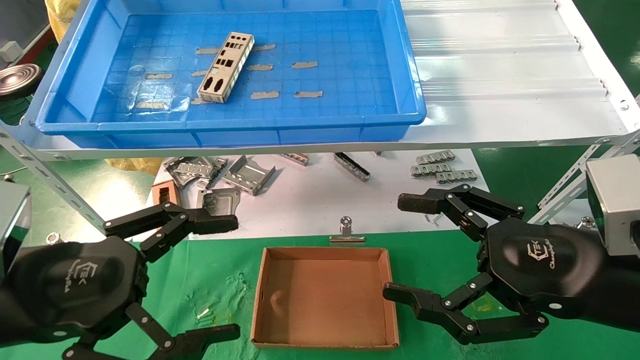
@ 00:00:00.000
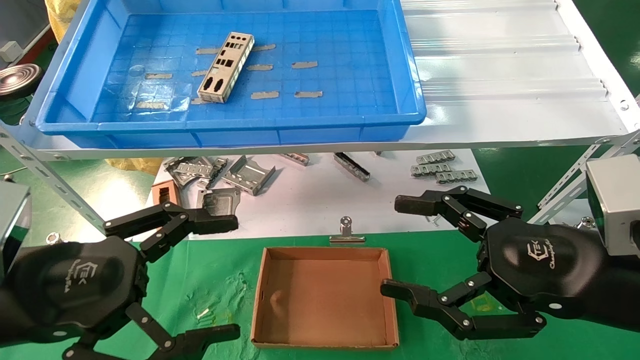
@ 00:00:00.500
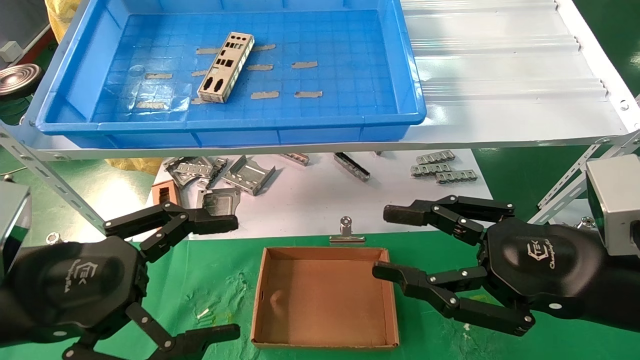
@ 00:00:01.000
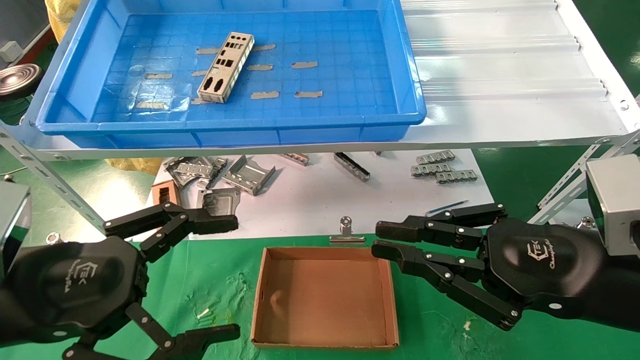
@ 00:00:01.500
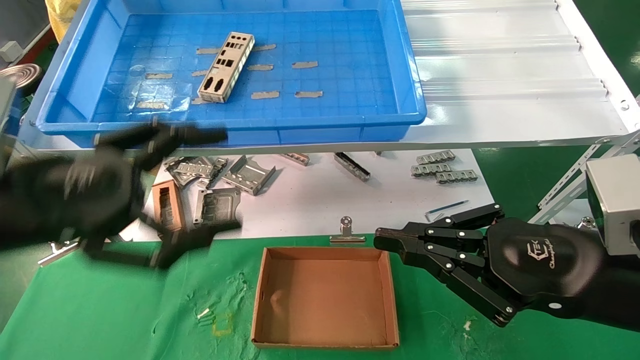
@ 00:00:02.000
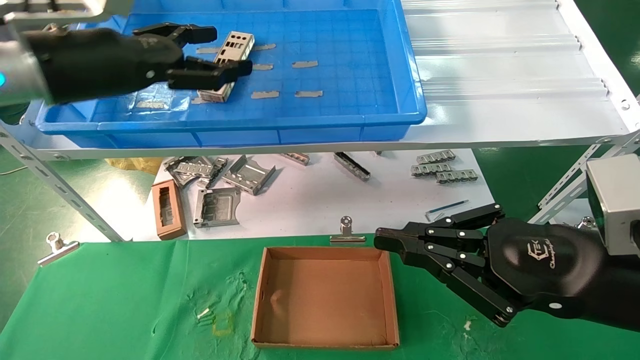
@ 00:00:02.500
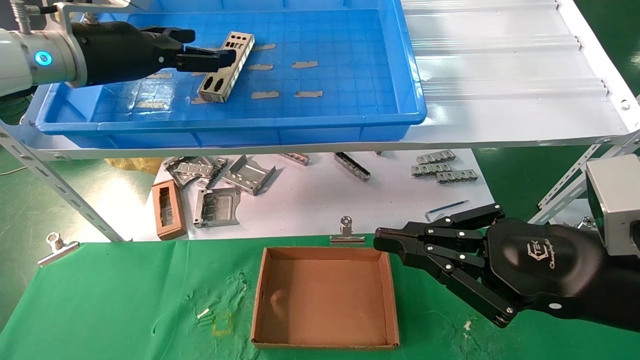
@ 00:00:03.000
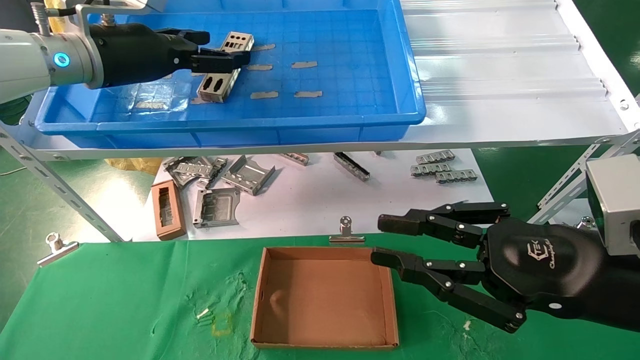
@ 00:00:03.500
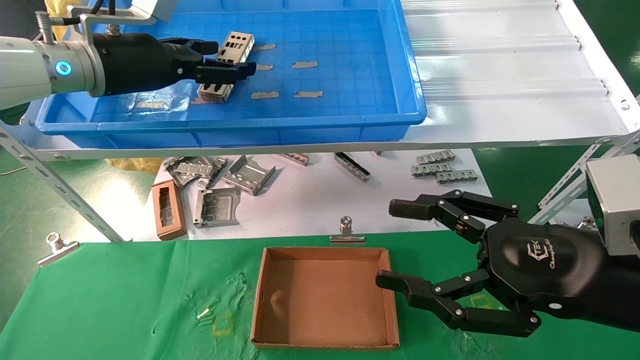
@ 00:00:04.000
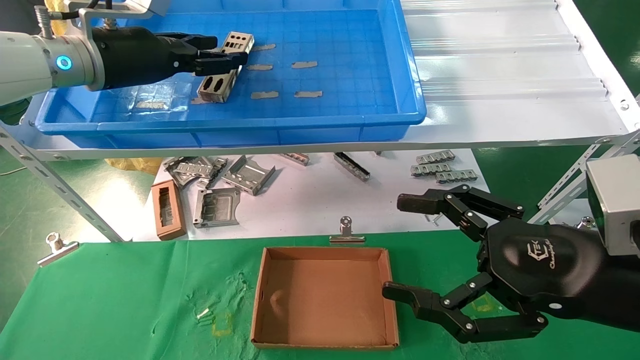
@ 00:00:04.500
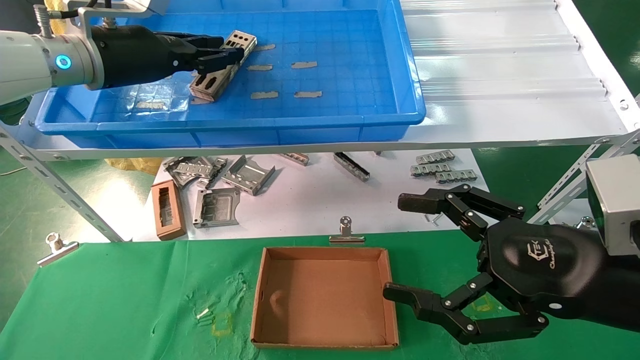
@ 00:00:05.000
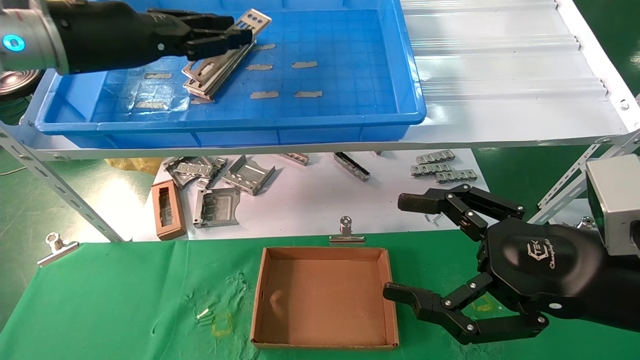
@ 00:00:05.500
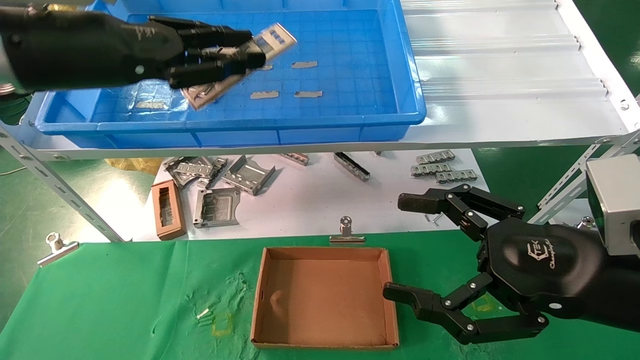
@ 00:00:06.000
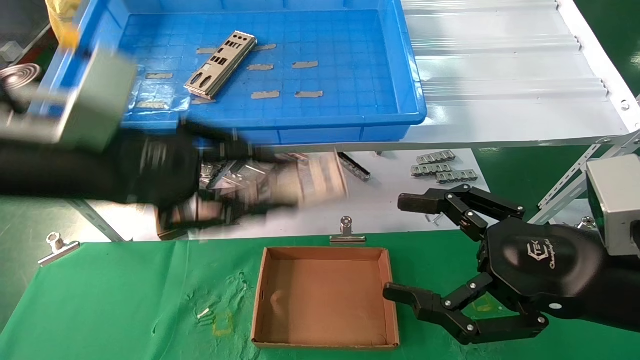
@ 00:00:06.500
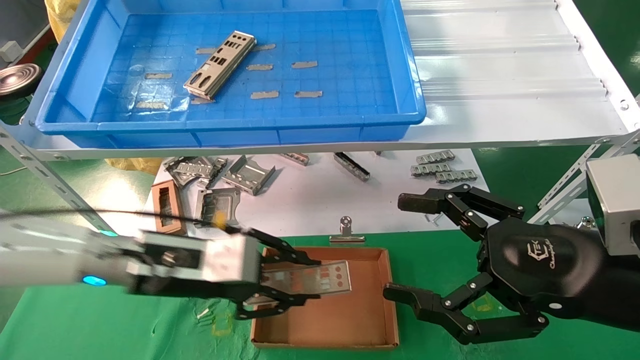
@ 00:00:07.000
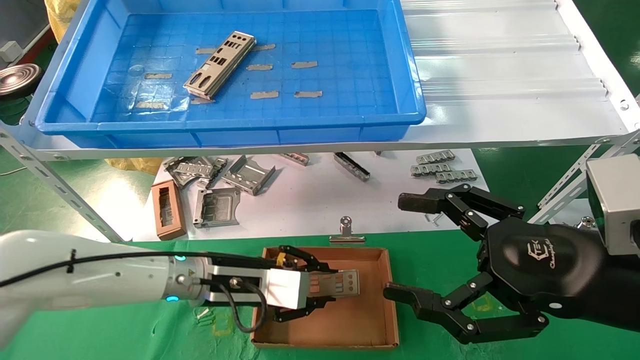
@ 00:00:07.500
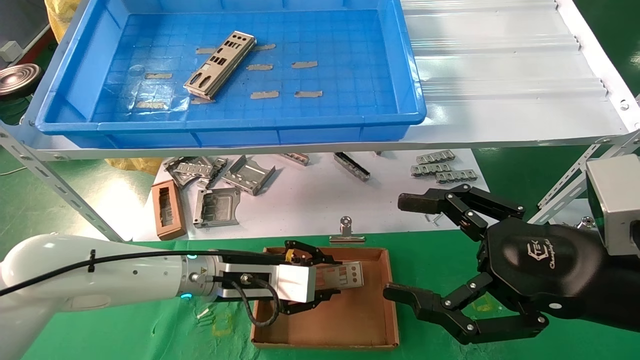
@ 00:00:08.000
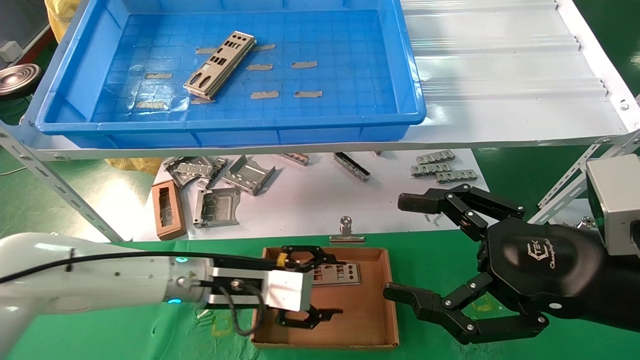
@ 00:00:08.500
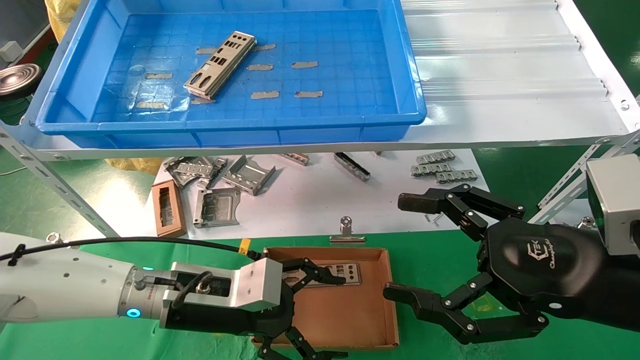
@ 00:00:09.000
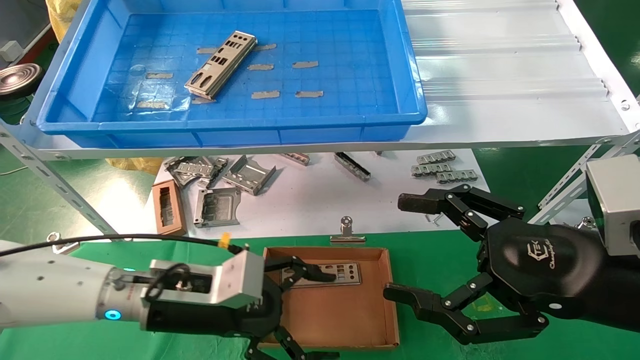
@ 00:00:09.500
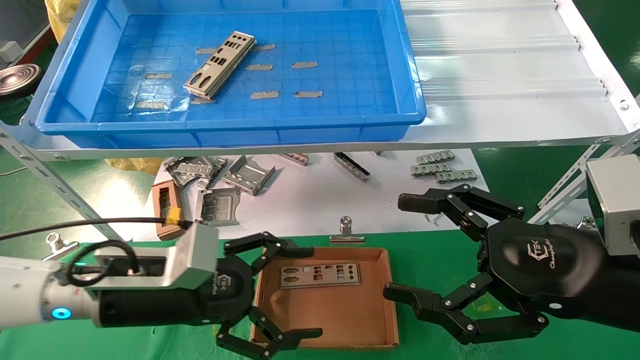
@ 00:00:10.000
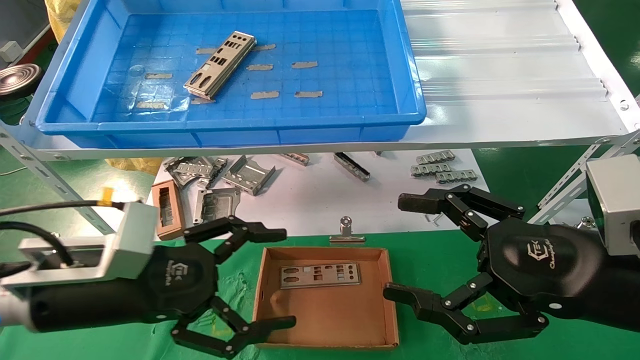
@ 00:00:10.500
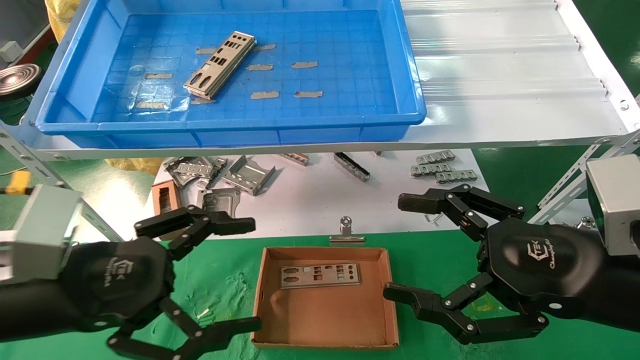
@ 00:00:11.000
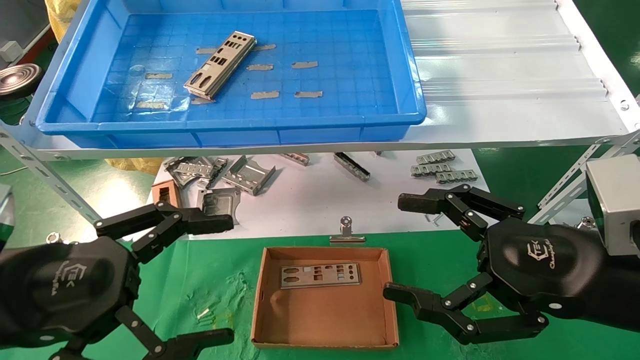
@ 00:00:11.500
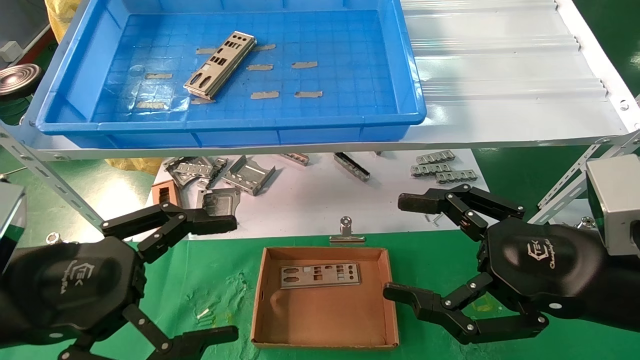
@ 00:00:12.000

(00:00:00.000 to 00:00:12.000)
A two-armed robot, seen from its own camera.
Task of the whole recording: pick up the parts on the tray and put them in the cardboard box.
Step, 00:00:02.500 - 00:00:05.000: Pick up the IO bracket from the container box.
Step, 00:00:05.500 - 00:00:08.000: Place the IO bracket into the ingredient slot.
00:00:00.000 - 00:00:02.000: The left gripper heads upward, covering approximately 5 cm. Meanwhile the right gripper closes up.
00:00:02.000 - 00:00:04.000: The right gripper opens. Meanwhile the left gripper goes roughly 20 cm forward and upward.
00:00:04.000 - 00:00:06.000: The left gripper moves backward, about 10 cm, and closes; the right gripper opens.
00:00:06.000 - 00:00:08.000: The left gripper travels downward and to the right by roughly 30 cm.
00:00:08.000 - 00:00:10.000: The left gripper is displaced backward and to the left by roughly 10 cm, and opens its fingers.
00:00:10.000 - 00:00:12.000: The left gripper shifts approximately 15 cm backward, to the left and upward.

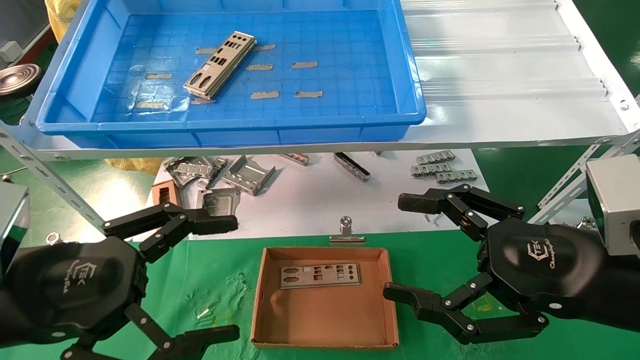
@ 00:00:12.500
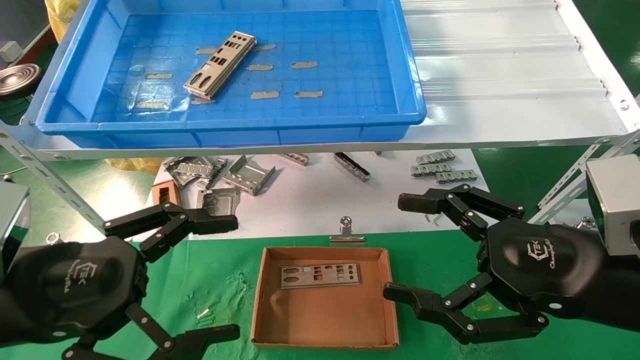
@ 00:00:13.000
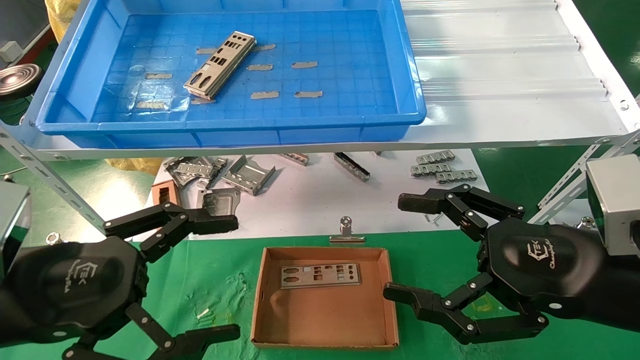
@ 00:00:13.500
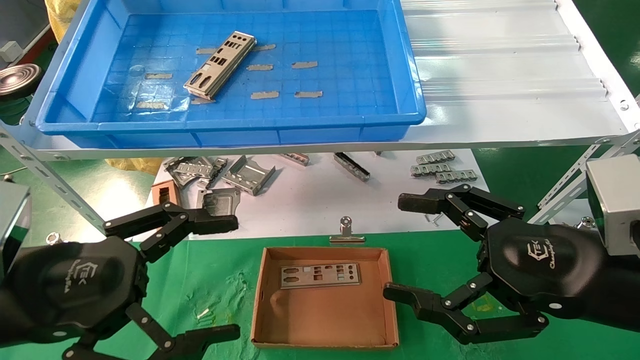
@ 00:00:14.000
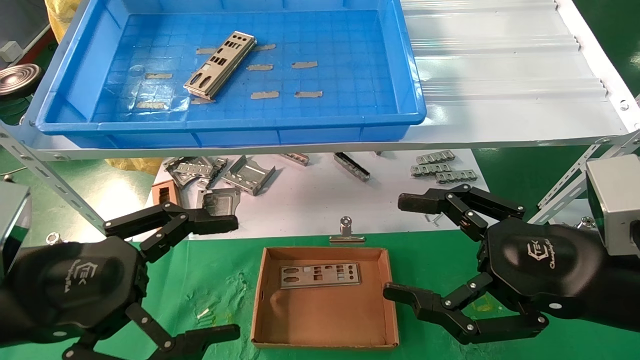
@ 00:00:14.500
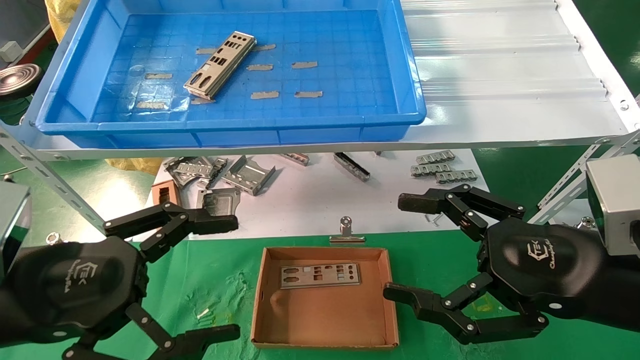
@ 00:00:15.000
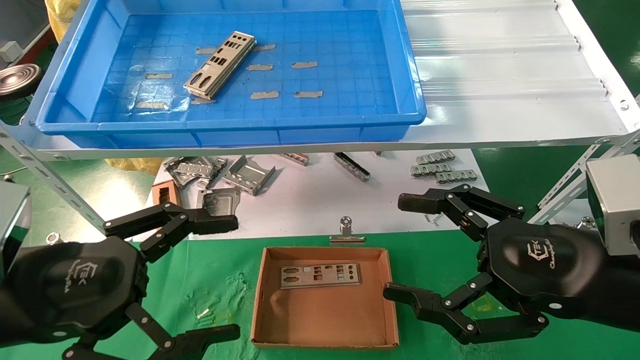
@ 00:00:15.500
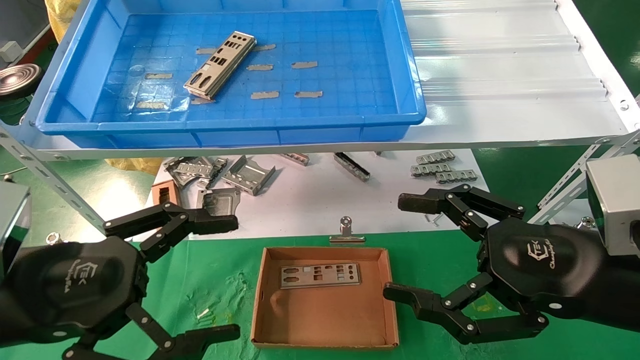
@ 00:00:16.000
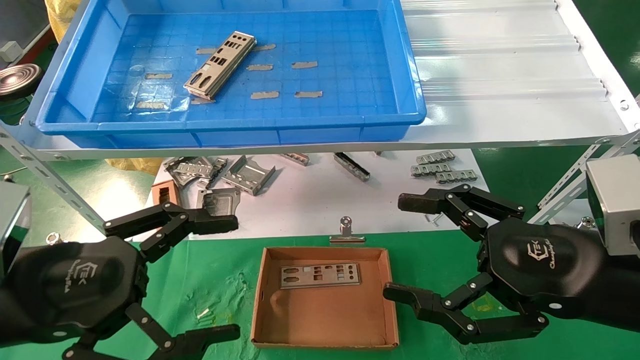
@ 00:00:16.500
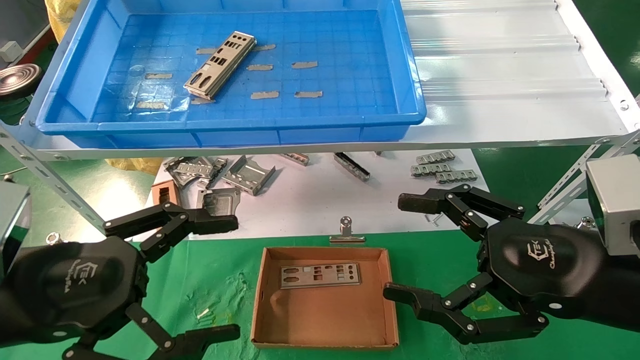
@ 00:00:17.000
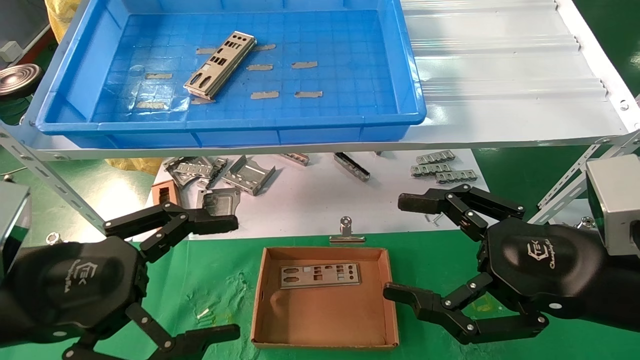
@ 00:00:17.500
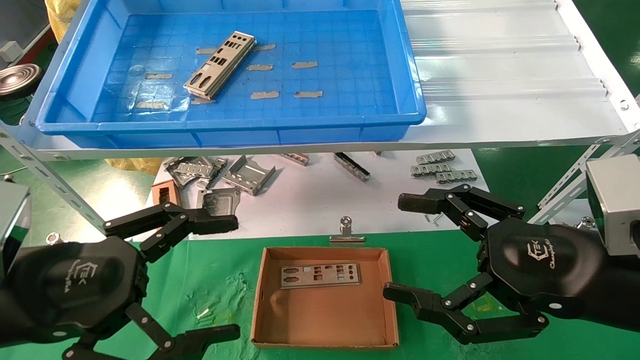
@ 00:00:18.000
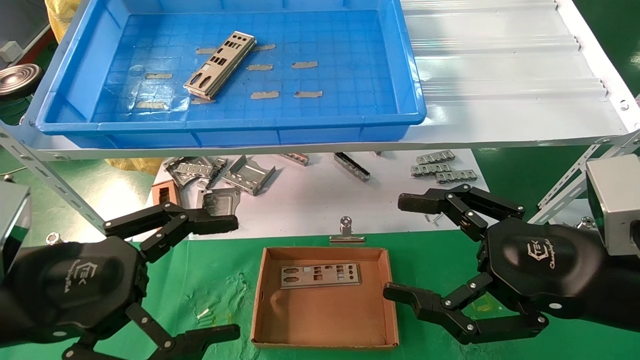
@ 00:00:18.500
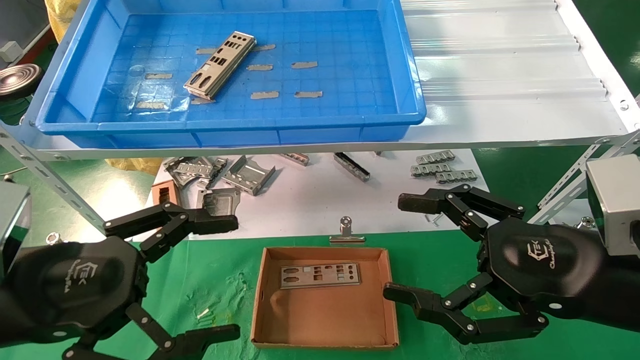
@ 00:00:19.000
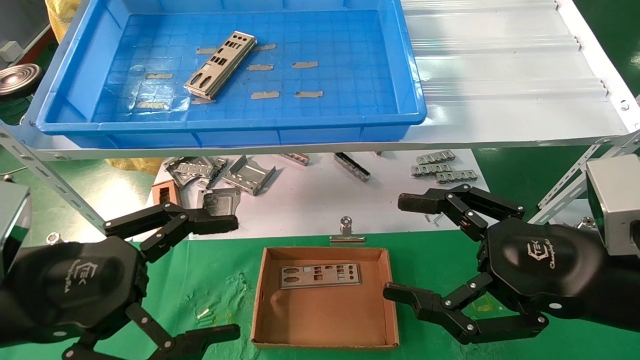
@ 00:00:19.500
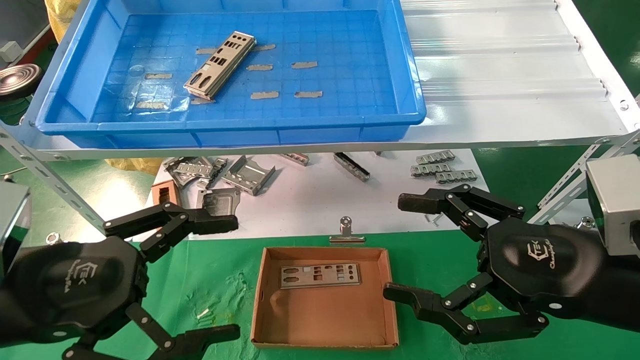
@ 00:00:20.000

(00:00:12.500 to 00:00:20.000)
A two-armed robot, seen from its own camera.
Task of the whole recording: pick up the parts on the tray and put them in the cardboard box.
00:00:12.500 - 00:00:20.000: Both grippers stay about where they are.
